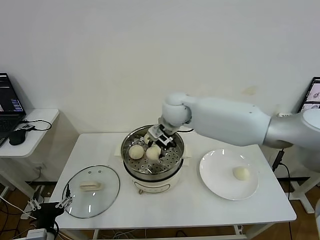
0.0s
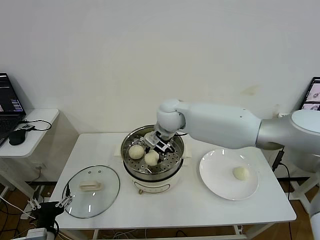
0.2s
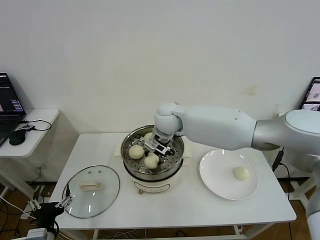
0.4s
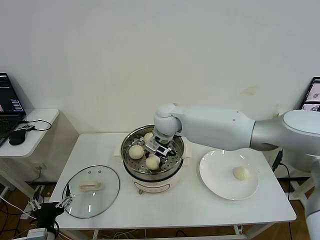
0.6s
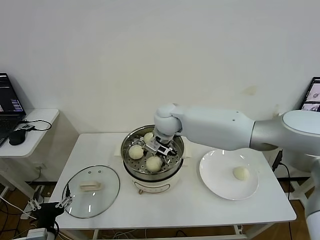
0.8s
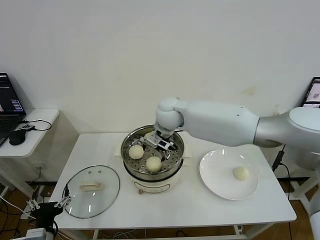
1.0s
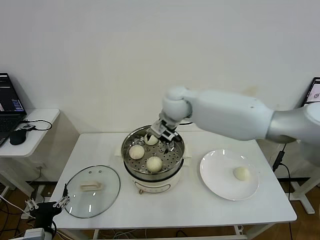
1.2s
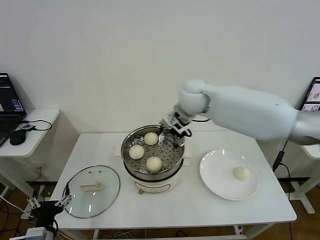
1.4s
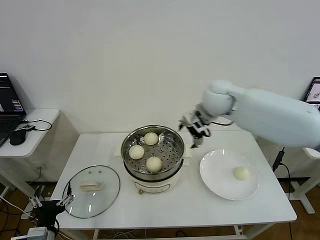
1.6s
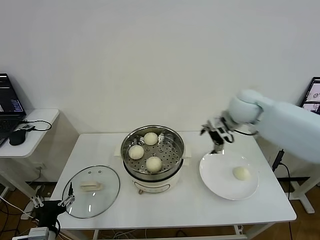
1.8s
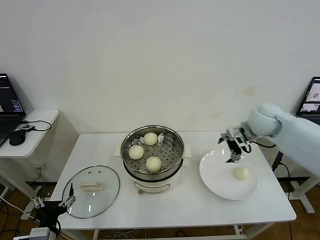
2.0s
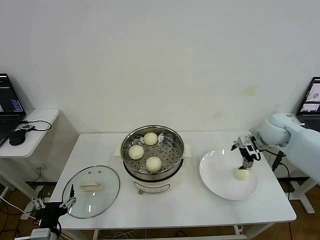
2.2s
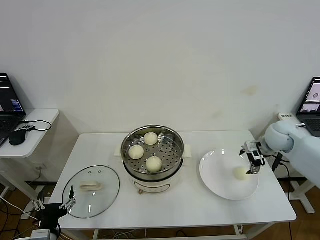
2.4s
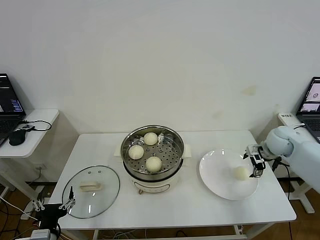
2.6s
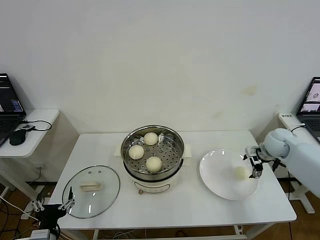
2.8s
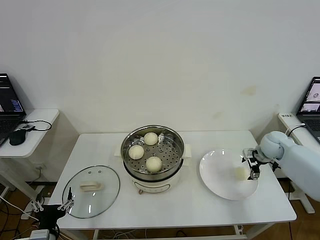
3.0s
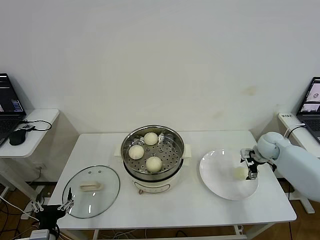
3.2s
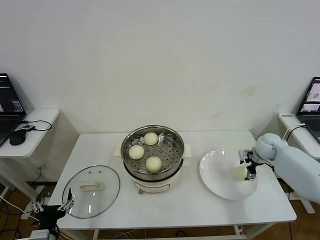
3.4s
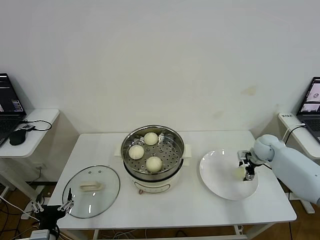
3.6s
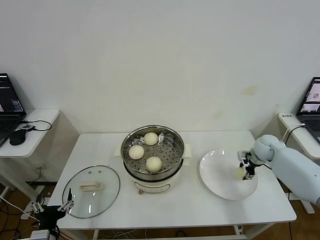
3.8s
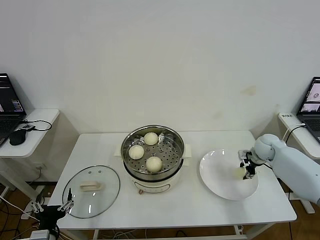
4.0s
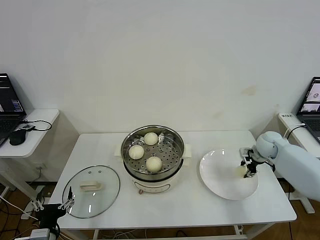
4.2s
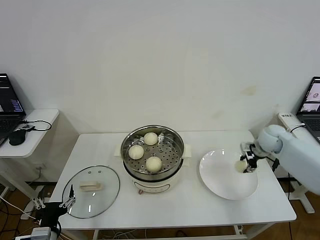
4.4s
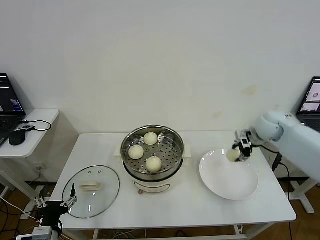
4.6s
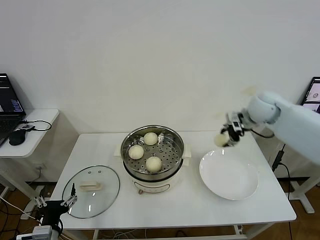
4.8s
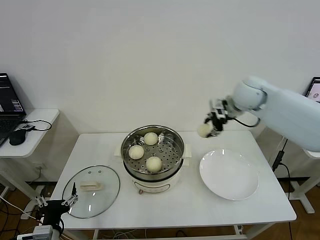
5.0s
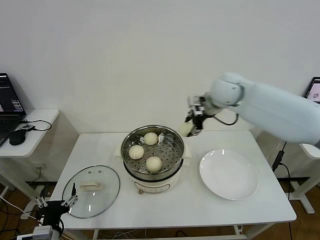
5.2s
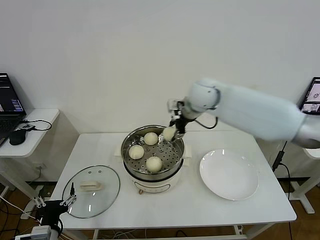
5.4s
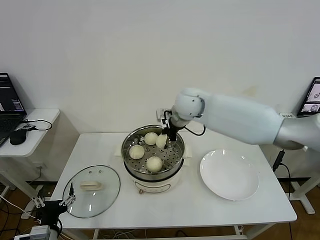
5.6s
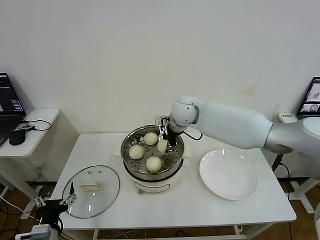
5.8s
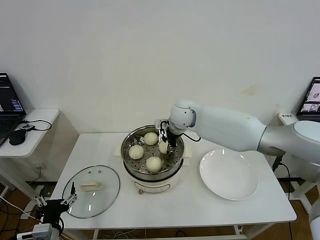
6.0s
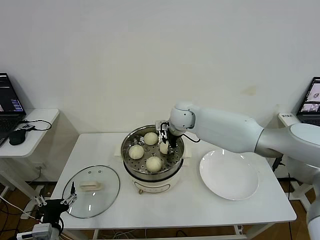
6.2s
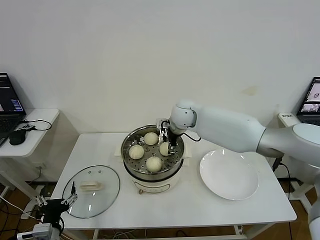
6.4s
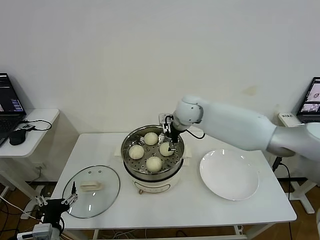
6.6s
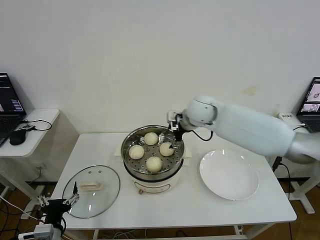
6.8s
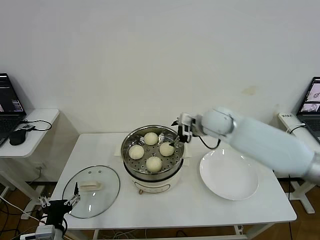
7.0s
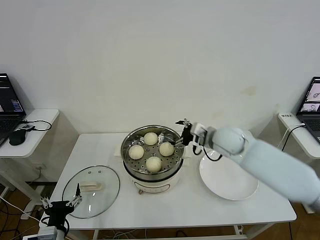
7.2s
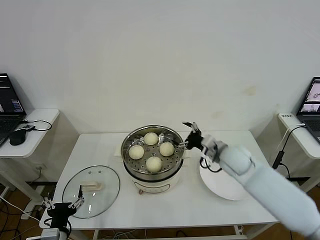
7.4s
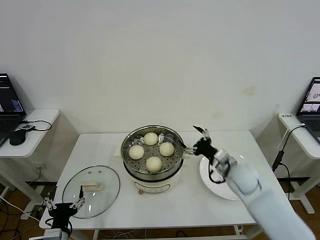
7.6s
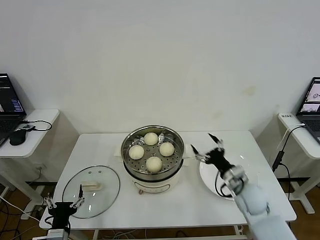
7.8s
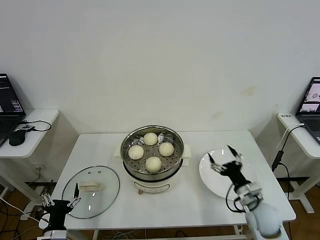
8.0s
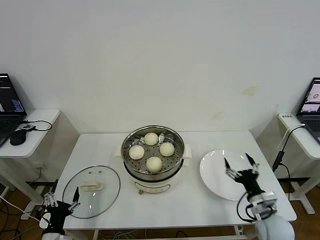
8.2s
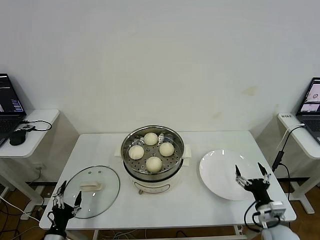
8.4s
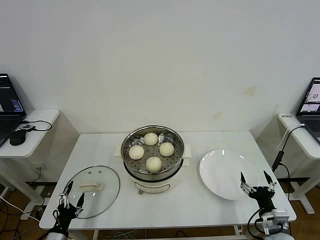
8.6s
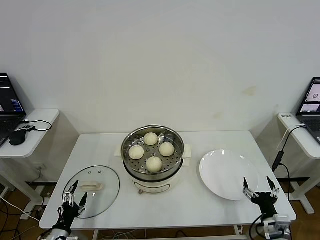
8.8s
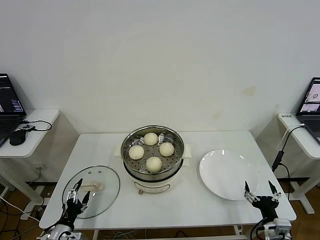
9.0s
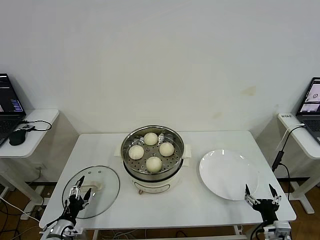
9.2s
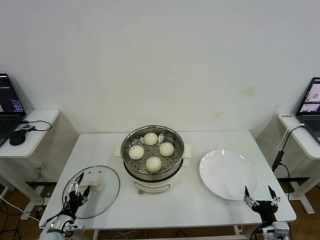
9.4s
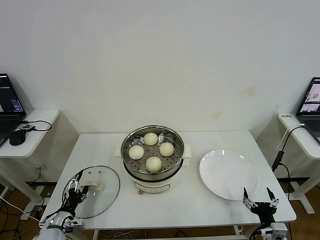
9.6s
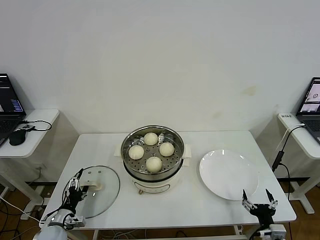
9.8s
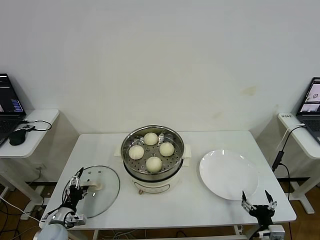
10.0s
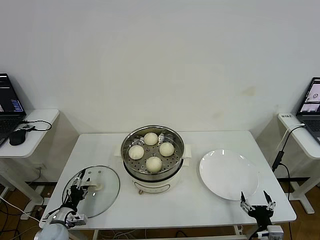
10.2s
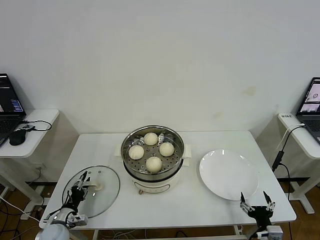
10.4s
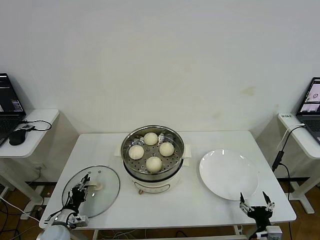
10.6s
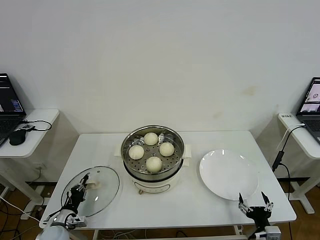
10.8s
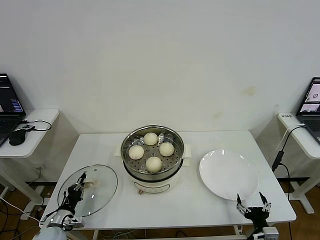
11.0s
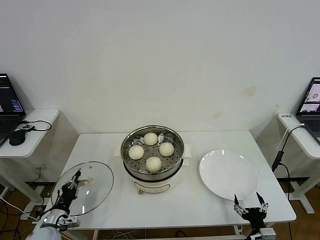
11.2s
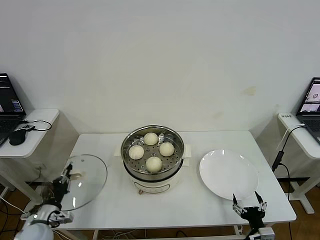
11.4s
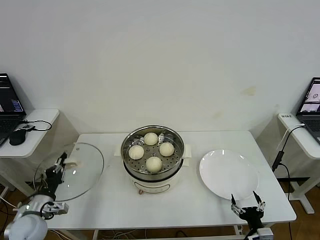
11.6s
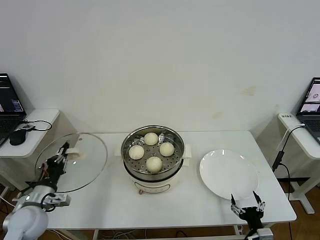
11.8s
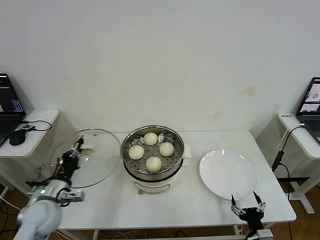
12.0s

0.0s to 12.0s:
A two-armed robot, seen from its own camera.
Step, 1.0s to 4.0s: Grasp the baozi in the plate with right gripper.
Step, 4.2s to 6.4s: Place the baozi on the steamer with right gripper.
Step, 6.6s to 10.8s: Grasp the pot lid with left gripper.
0.0s to 1.6s: The right gripper is displaced to the right by about 15 cm, and opens.
1.6s to 3.0s: The right gripper travels to the right and downward by approximately 30 cm.
3.0s to 4.4s: The right gripper closes its fingers.
4.4s to 6.0s: The right gripper is displaced to the left by approximately 35 cm.
6.0s to 7.6s: The right gripper shifts about 30 cm to the right, backward and downward, and opens.
7.6s to 9.0s: The right gripper travels backward, downward and to the right by some 25 cm, while the left gripper is displaced downward and to the left by approximately 10 cm.
9.0s to 10.4s: The left gripper heads forward, covering about 5 cm, and closes.
10.4s to 12.0s: The left gripper moves upward, about 20 cm, and closes.

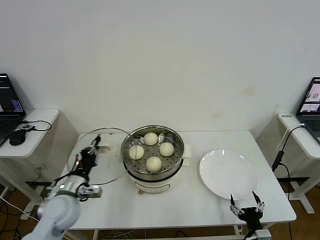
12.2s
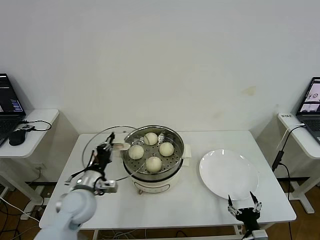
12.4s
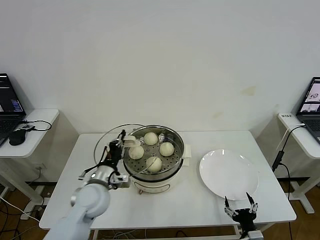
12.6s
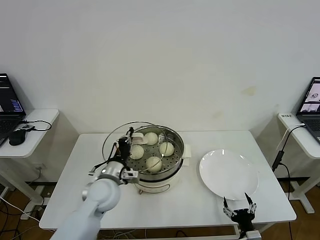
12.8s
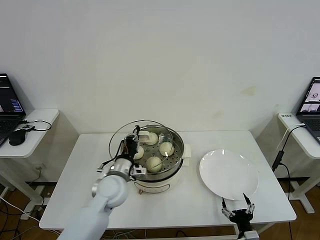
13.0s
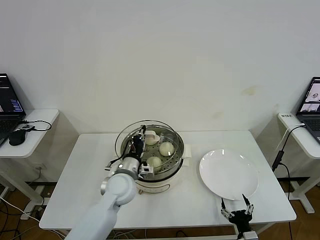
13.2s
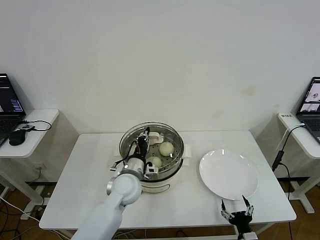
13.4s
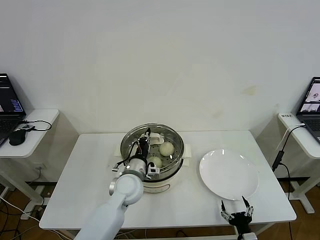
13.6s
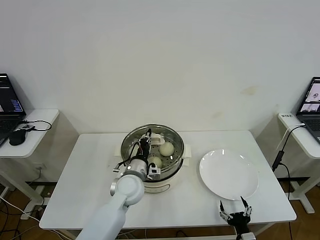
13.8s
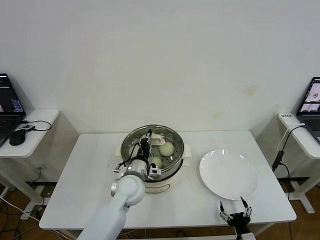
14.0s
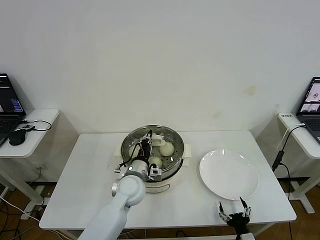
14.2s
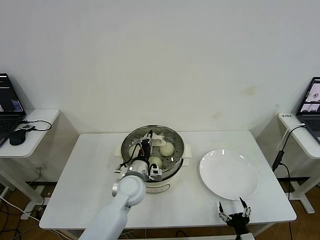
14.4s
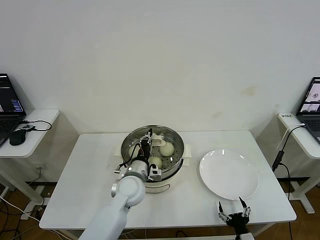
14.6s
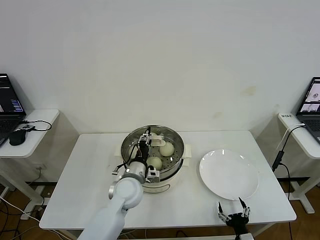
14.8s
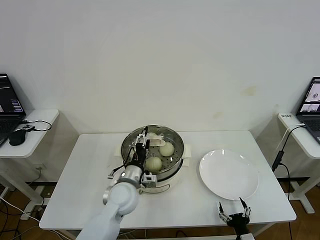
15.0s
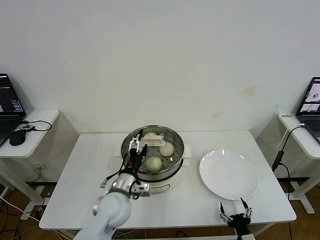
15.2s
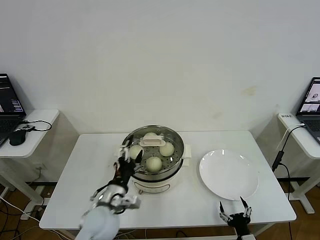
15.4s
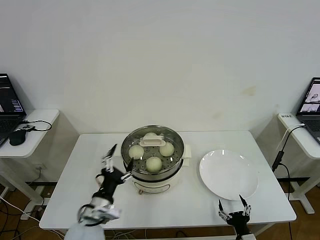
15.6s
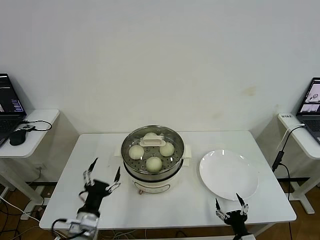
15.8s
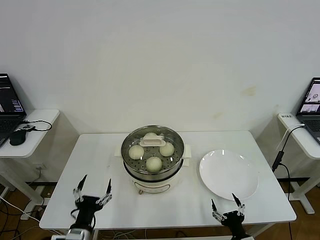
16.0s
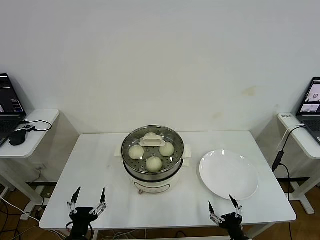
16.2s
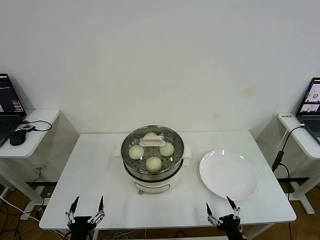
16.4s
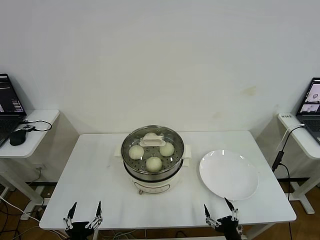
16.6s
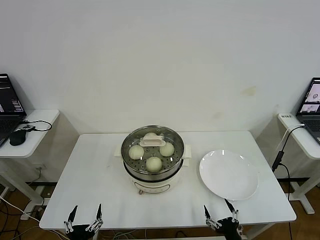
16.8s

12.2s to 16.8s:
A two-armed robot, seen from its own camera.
Step, 12.2s to 14.8s: Place the pot lid on the steamer with left gripper.
12.2s to 13.8s: The left gripper goes roughly 20 cm to the right and forward.
13.8s to 15.2s: The left gripper is displaced backward by about 5 cm, and opens its fingers.
15.2s to 16.8s: The left gripper is displaced backward, to the left and downward by approximately 30 cm, while the right gripper moves some 5 cm.

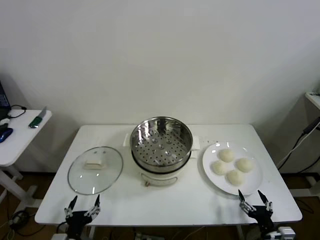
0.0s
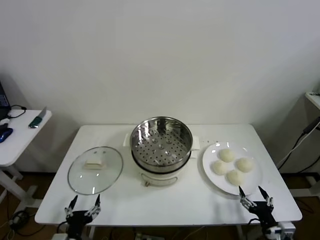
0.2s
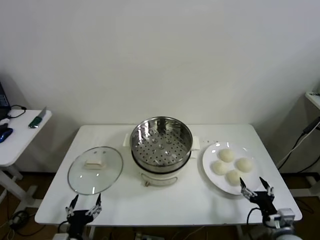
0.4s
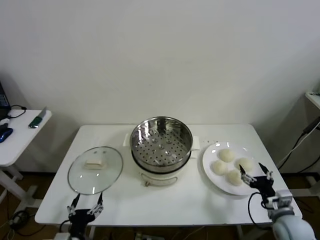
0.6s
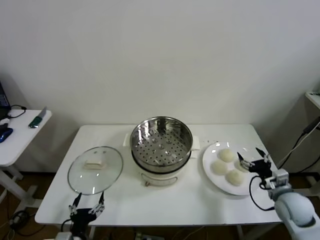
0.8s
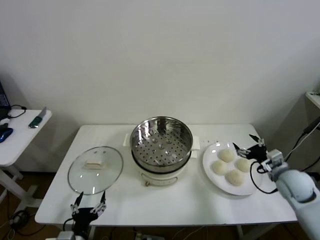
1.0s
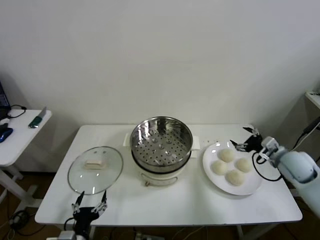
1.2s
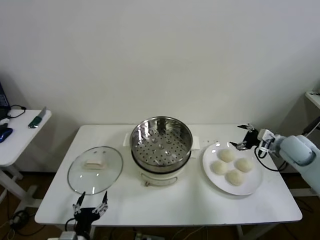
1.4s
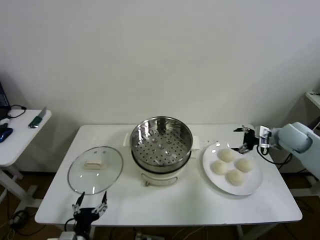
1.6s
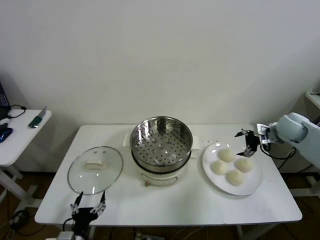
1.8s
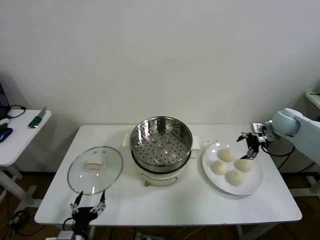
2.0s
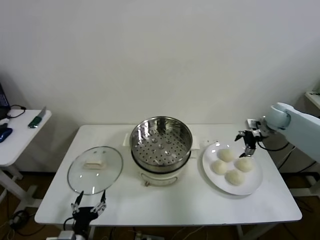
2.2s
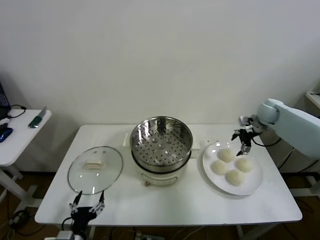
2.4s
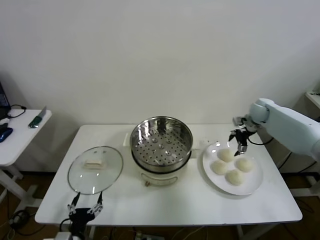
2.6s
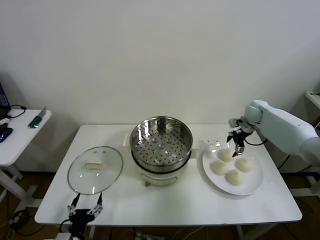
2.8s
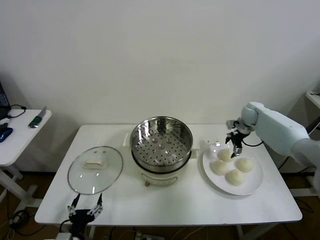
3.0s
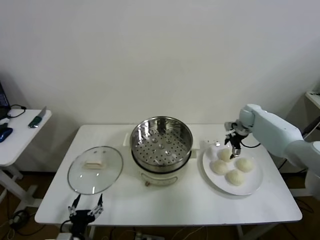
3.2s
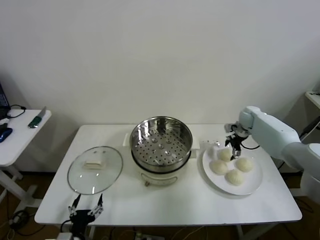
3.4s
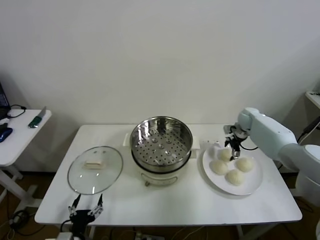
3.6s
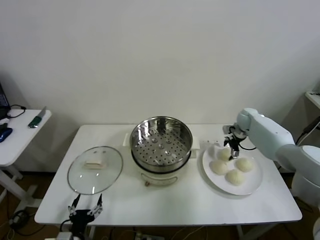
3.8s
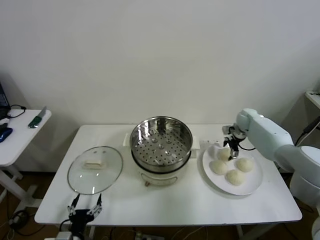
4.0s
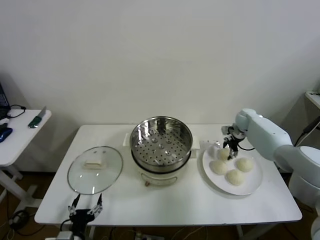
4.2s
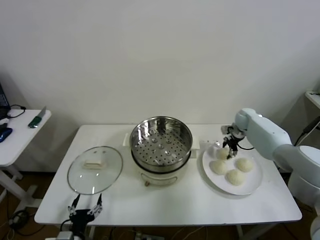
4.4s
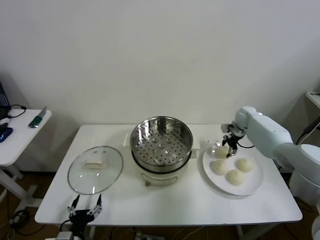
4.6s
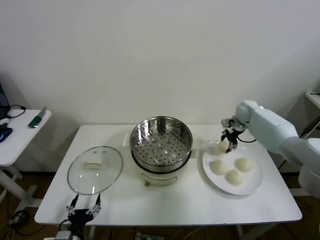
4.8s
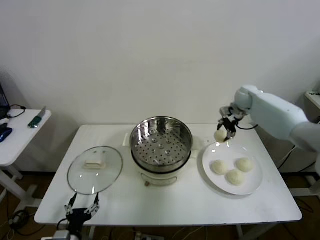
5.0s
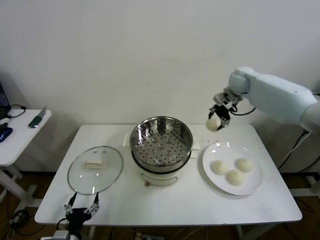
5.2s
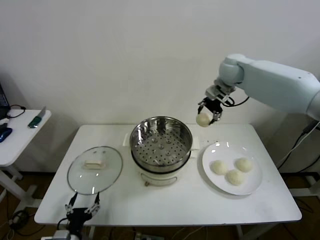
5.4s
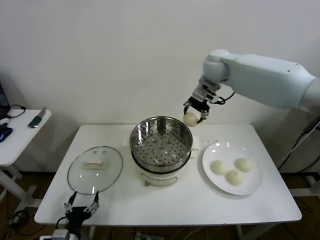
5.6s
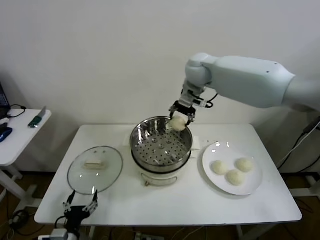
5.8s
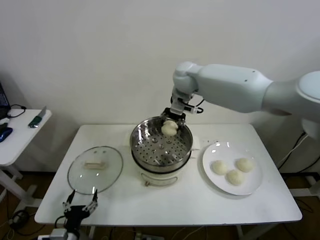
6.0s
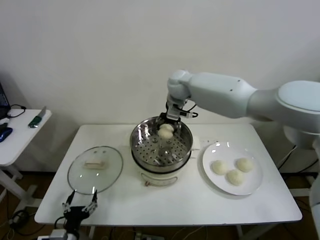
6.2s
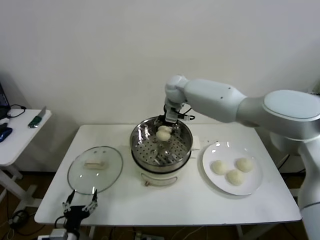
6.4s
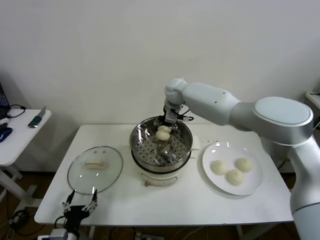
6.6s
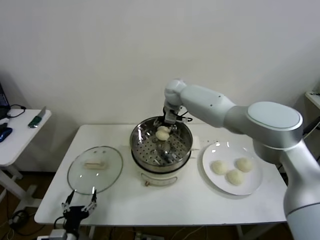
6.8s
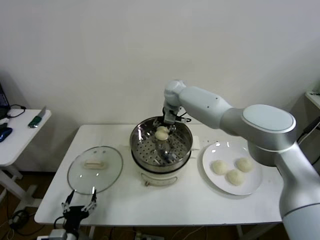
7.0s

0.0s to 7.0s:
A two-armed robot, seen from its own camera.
Step, 0.0s to 4.2s: Grasp the baozi in the plate with right gripper.
1.4s to 2.8s: The right gripper travels forward by approximately 15 cm.
2.8s to 4.2s: The right gripper moves approximately 5 cm, and closes.
4.2s to 5.6s: The right gripper goes about 35 cm upward and to the left.
5.6s to 7.0s: The right gripper goes about 15 cm downward, to the left and forward.
